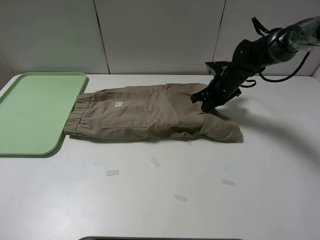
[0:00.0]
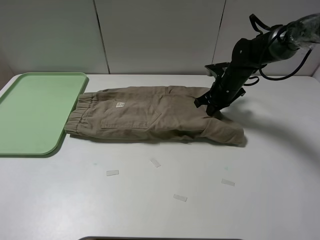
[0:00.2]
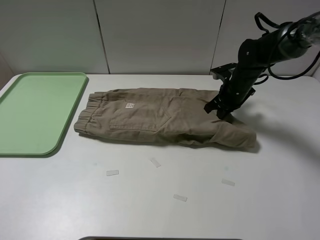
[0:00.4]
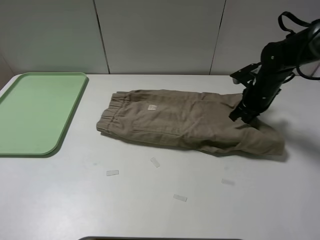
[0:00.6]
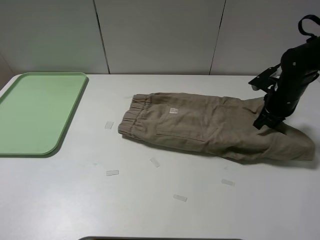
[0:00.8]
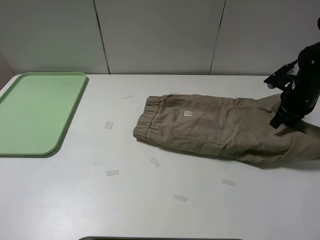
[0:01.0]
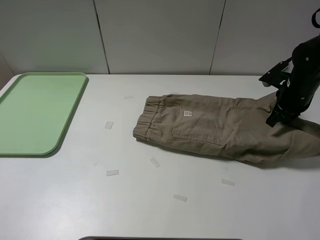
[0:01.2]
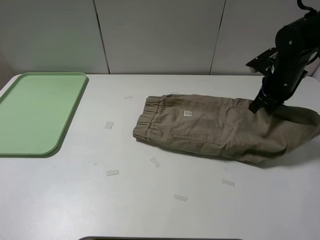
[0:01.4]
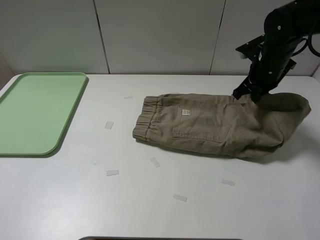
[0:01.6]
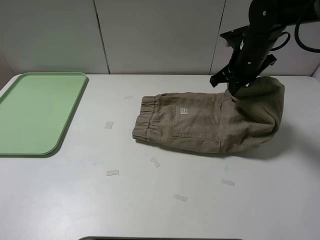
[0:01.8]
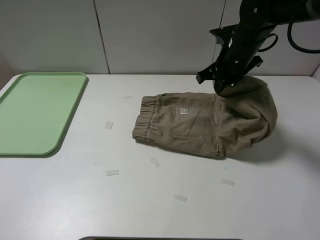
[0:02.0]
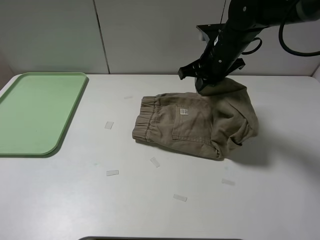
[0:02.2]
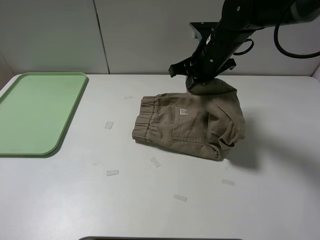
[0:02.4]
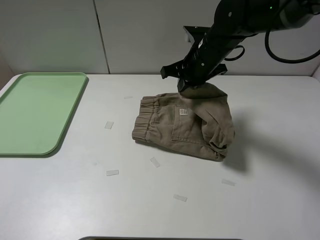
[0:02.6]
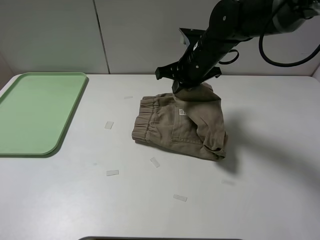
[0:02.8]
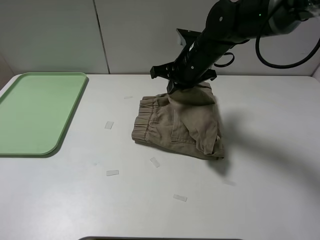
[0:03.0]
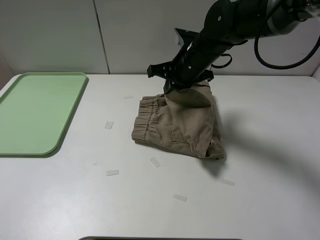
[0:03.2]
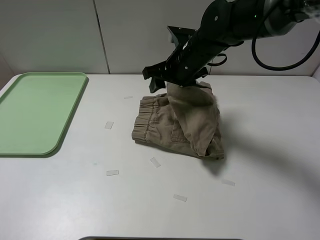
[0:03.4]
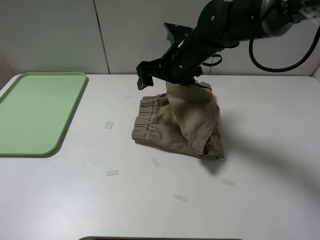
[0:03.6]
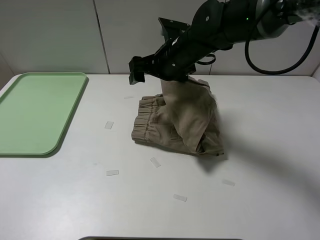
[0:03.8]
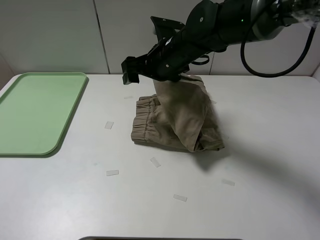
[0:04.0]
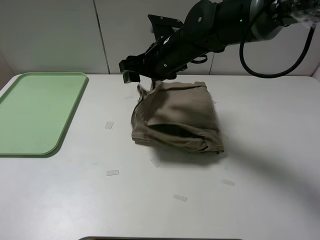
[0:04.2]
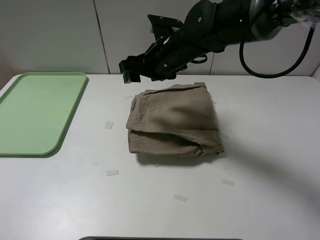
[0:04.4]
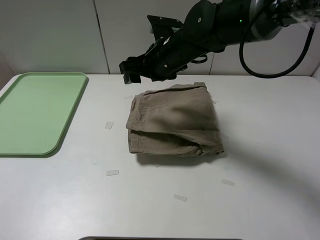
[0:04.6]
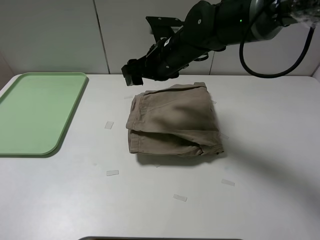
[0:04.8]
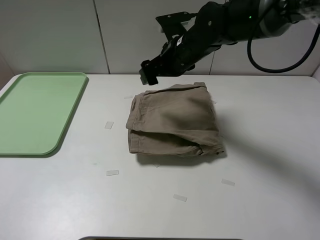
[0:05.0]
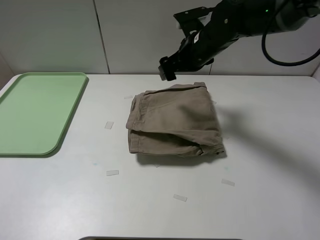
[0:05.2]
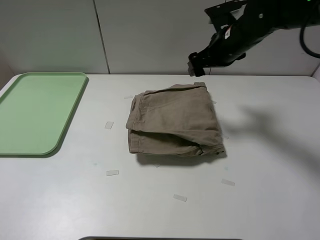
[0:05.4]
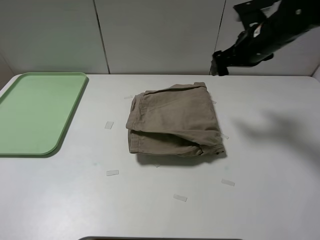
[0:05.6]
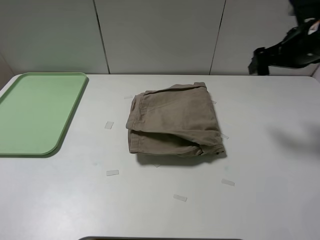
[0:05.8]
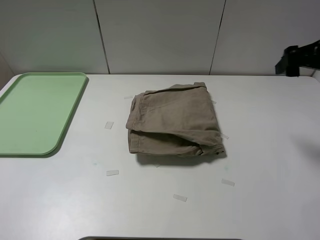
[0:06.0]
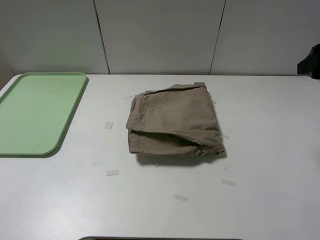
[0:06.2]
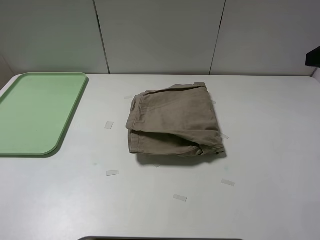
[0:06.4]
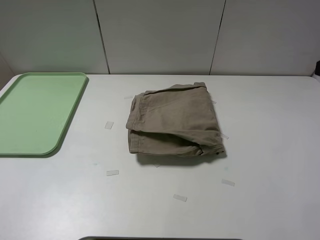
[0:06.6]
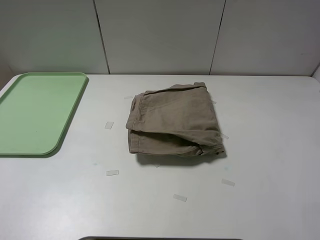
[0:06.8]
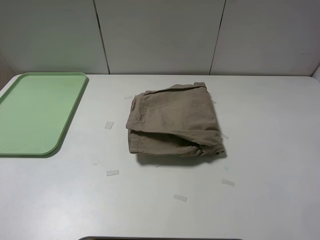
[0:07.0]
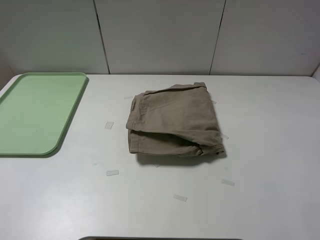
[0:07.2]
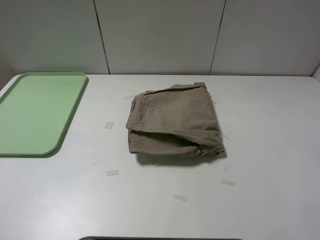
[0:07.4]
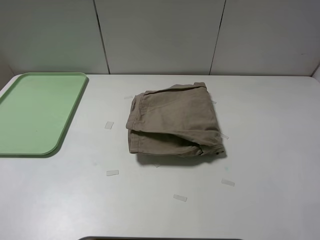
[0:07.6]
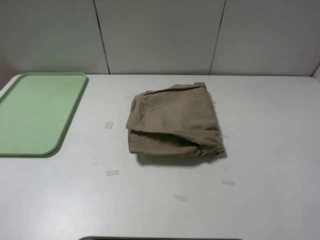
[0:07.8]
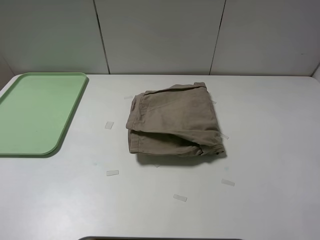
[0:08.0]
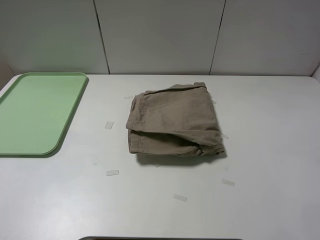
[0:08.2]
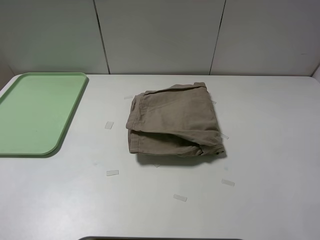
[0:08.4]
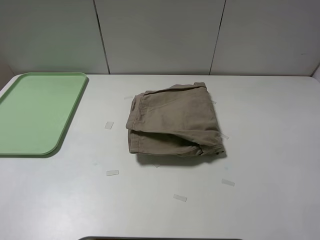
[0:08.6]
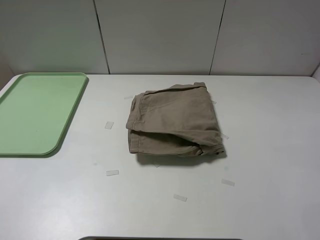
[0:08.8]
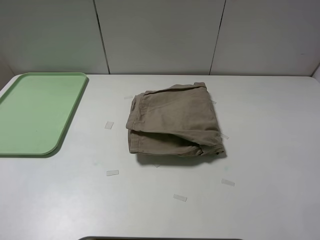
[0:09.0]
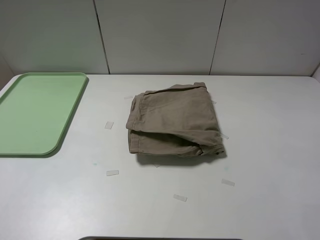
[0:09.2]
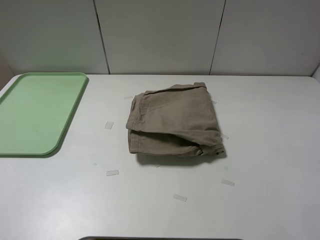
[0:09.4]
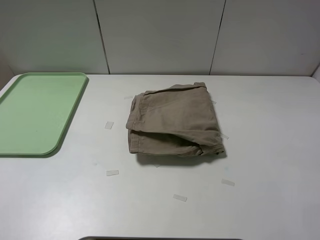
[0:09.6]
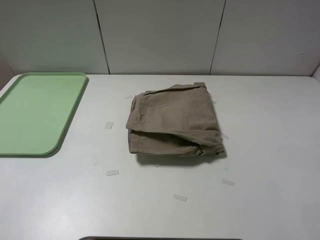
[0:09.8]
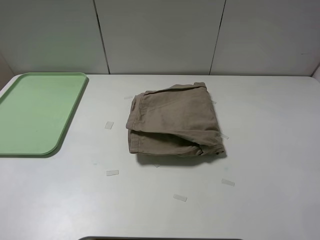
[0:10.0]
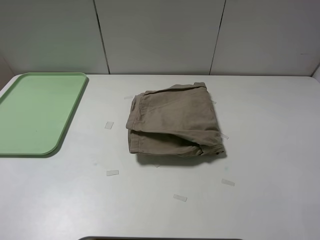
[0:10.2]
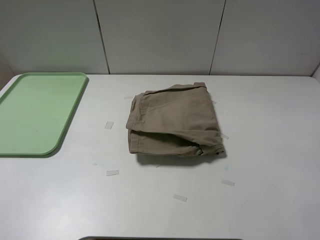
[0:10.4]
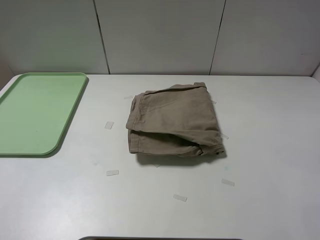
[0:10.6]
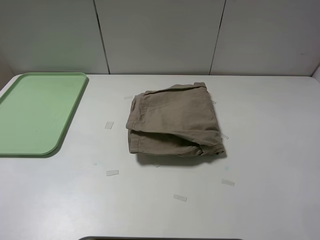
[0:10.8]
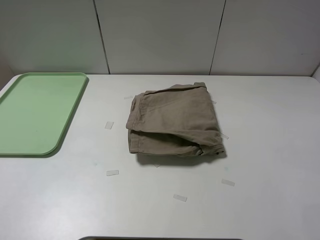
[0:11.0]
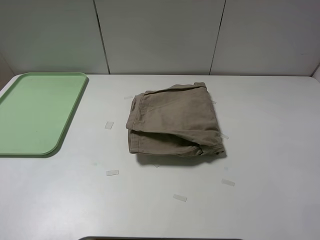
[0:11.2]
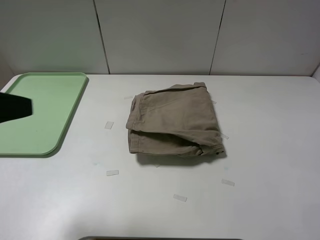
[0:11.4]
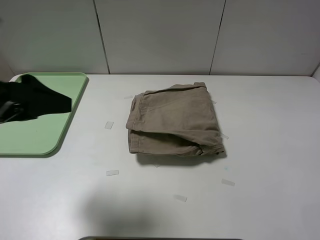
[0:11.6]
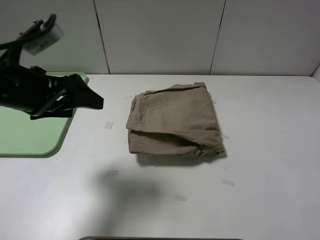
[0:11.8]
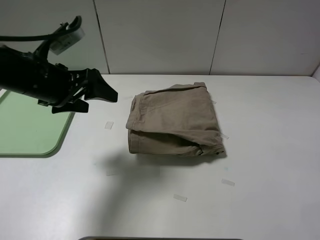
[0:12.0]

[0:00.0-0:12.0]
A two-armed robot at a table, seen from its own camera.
Task of the whole recording: fold the khaki jeans in half with two grippers, then fold them in half again, and use the left claw to place the folded fold khaki jeans on the tray.
Step, 0:00.2 to 0:04.2: Fold the khaki trousers from right to left with the right gripper.
0:00.0 to 0:01.6: The right gripper travels upward by approximately 10 cm, and travels to the right and back again, roughly 15 cm each way.
0:01.6 to 0:03.0: The right gripper heads to the left, covering about 15 cm.
0:03.0 to 0:04.4: The right gripper travels to the left by roughly 5 cm, and opens.
0:04.4 to 0:06.0: The right gripper travels to the right by roughly 30 cm.
0:06.0 to 0:07.6: The right gripper is displaced backward by some 20 cm.
0:09.0 to 0:10.4: The two grippers keep their place.
0:10.4 to 0:12.0: The left gripper heads forward and to the right, covering approximately 30 cm.

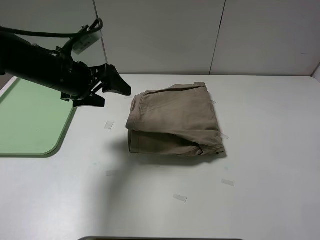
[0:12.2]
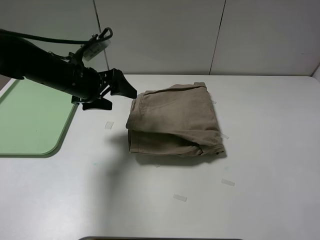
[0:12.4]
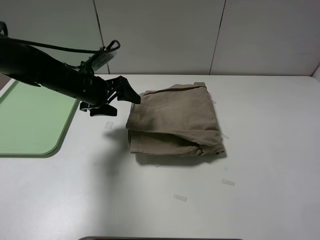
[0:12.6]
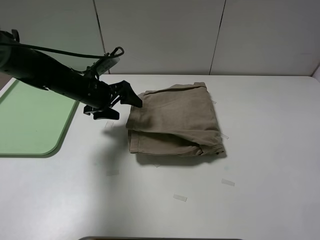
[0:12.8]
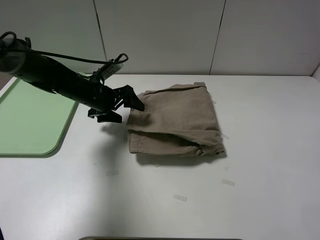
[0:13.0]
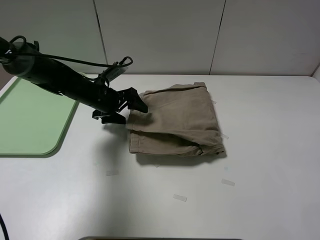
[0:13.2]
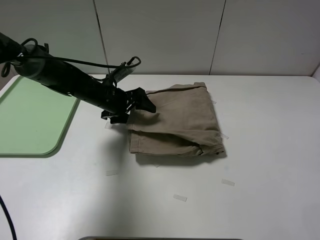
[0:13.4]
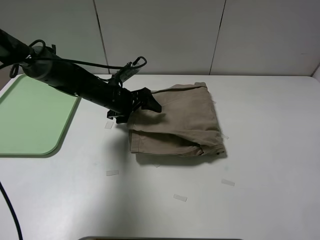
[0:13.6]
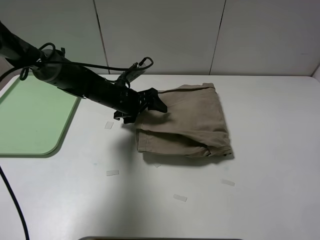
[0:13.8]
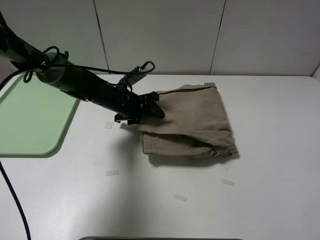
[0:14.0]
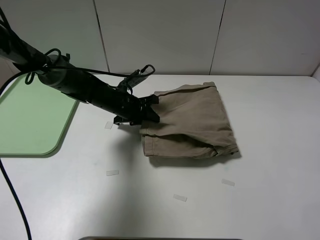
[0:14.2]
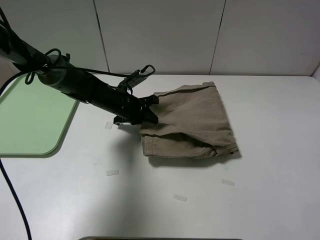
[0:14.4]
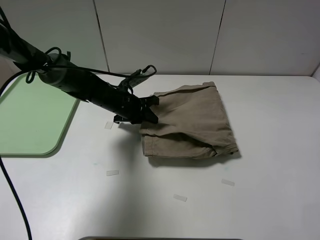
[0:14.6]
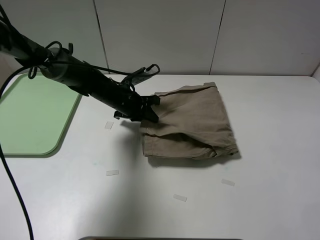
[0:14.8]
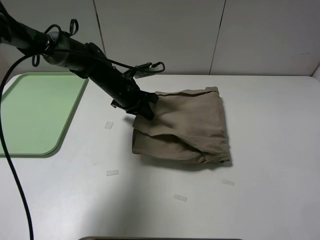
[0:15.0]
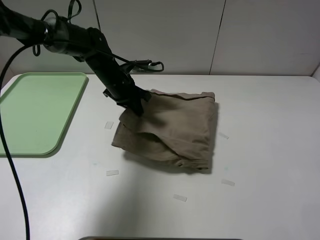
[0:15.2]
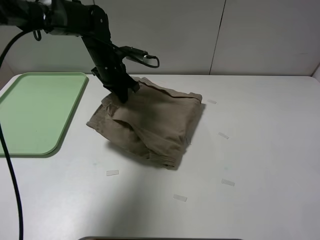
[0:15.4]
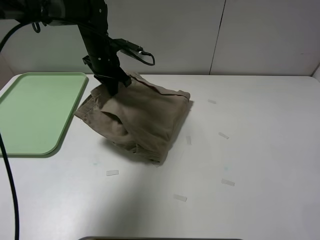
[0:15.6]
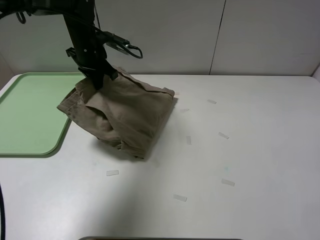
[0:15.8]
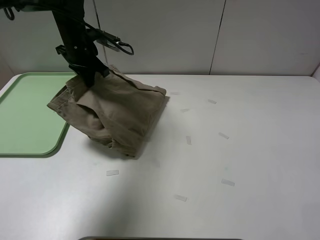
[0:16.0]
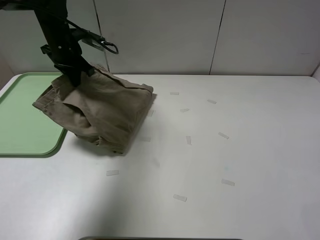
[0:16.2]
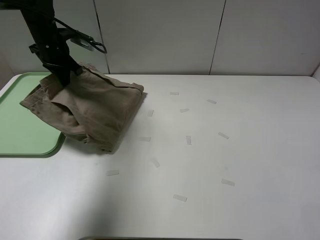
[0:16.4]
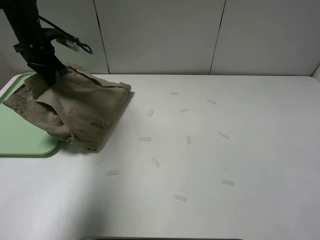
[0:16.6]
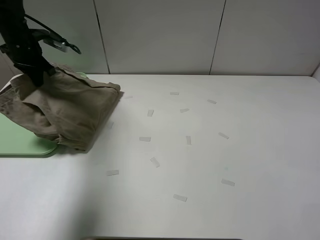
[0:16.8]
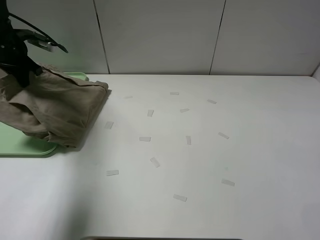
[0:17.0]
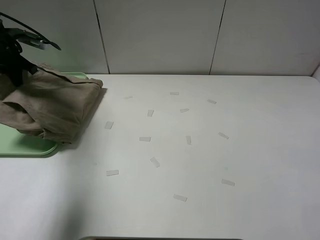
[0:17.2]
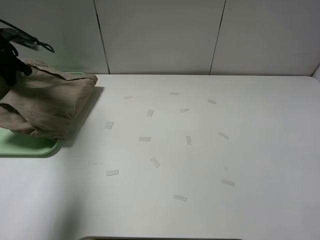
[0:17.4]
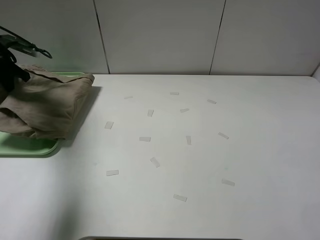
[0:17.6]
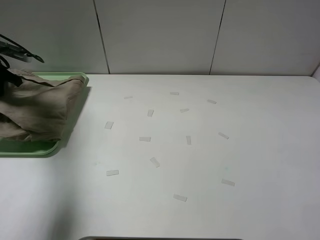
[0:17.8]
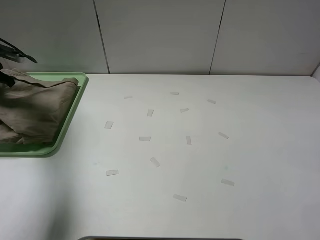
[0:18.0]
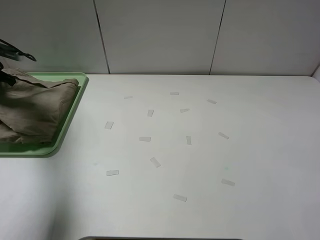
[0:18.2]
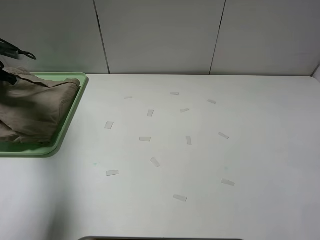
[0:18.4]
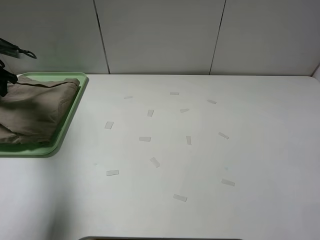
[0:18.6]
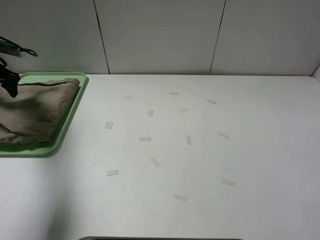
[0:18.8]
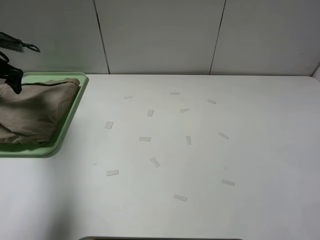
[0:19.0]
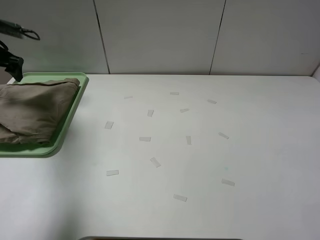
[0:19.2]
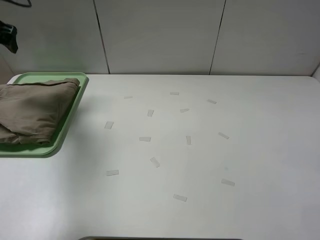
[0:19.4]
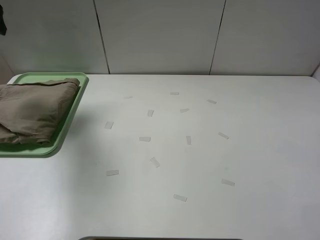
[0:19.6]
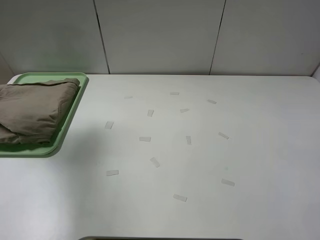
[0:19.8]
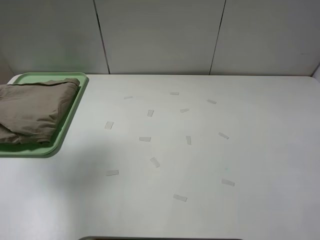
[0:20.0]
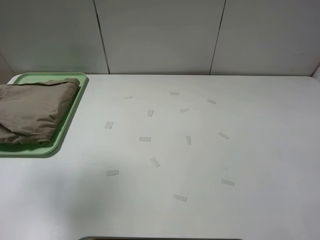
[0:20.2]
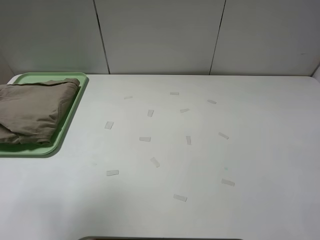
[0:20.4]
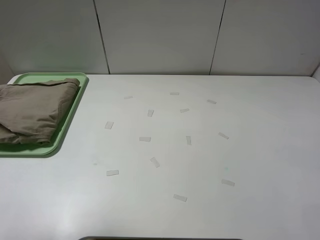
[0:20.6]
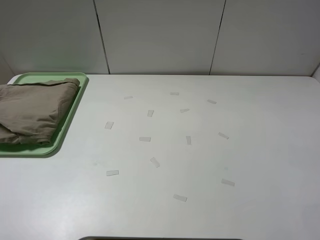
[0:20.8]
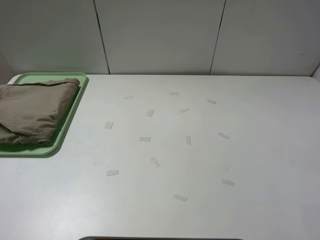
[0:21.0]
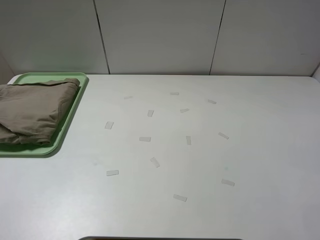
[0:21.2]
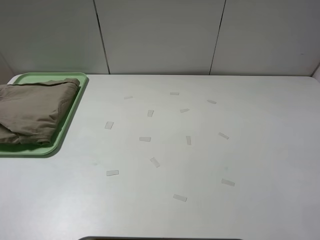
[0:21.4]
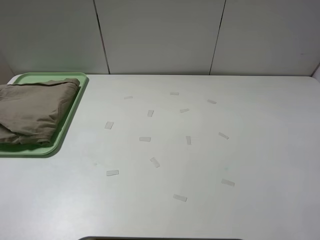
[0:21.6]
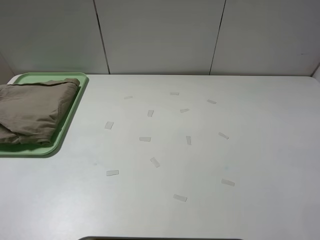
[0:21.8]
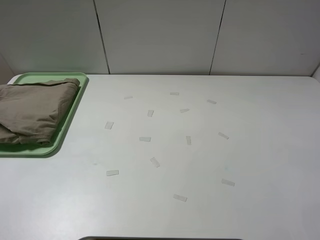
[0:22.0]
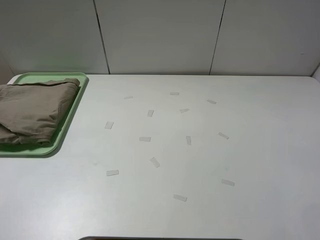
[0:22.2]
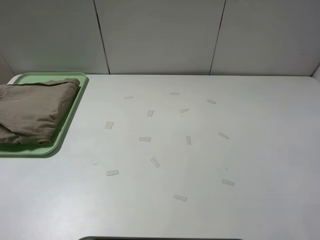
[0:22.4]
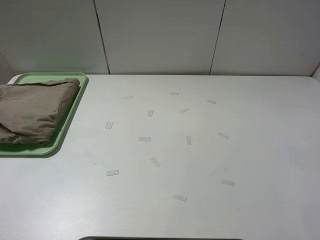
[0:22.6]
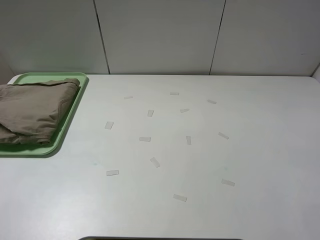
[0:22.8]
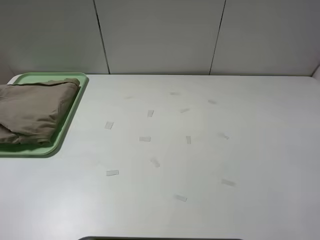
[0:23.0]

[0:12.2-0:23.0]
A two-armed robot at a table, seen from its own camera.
Task of the whole recording: fold the khaki jeans in half with two grippers, then fold them in half again, and use the left claw to place the folded fold khaki jeans on the tray.
Step, 0:12.2 to 0:14.4: Grasp the khaki trousers with the left gripper.
Step, 0:14.6 to 0:18.8: Place the folded khaki trousers on the green tray with the left gripper.
0:12.2 to 0:13.8: The left gripper shifts roughly 15 cm downward, to the right and forward.
0:13.8 to 0:15.2: The left gripper goes about 10 cm upward and forward, and closes up.
0:15.2 to 0:16.8: The left gripper heads to the left, covering about 20 cm.
0:16.8 to 0:18.4: The left gripper shifts approximately 10 cm to the left.
0:18.4 to 0:20.0: The left gripper heads upward, backward and to the right, covering some 30 cm, and opens up.
0:20.0 to 0:21.4: The left gripper travels backward by approximately 25 cm.
